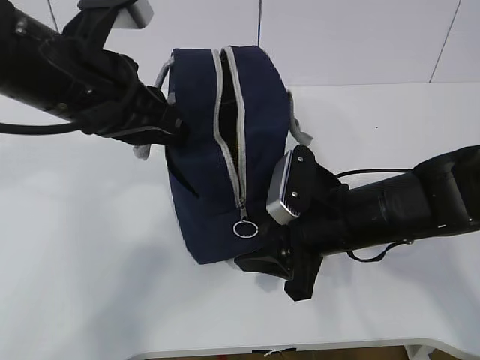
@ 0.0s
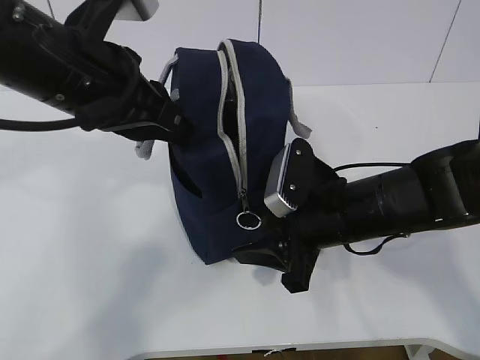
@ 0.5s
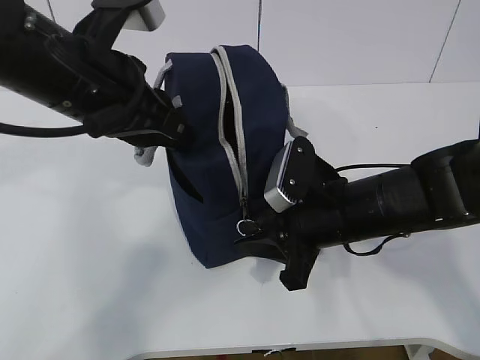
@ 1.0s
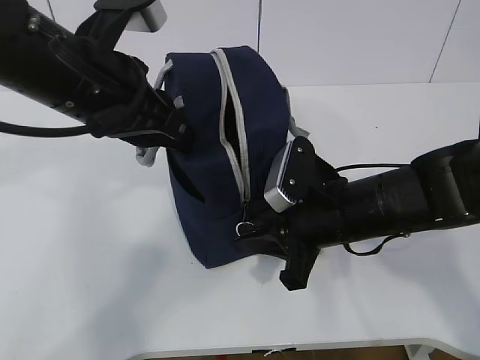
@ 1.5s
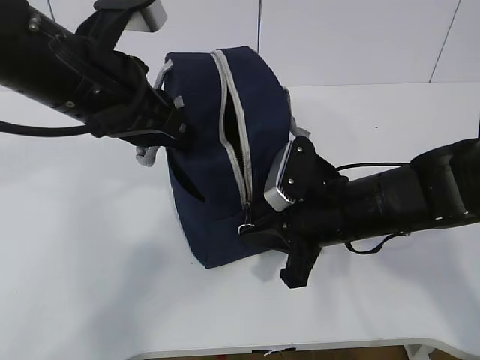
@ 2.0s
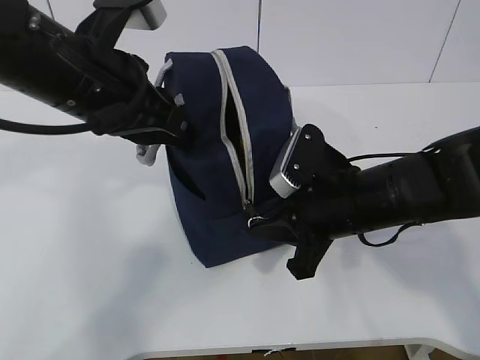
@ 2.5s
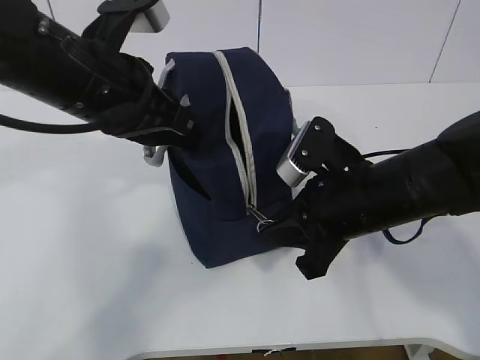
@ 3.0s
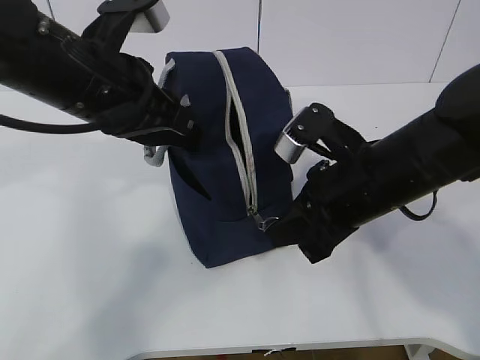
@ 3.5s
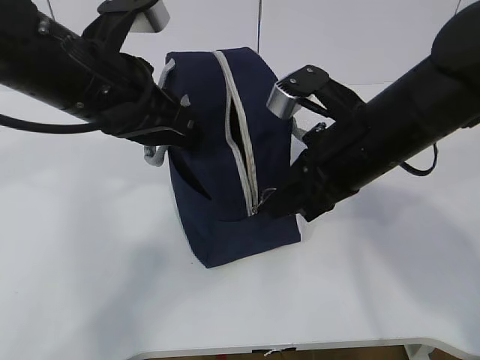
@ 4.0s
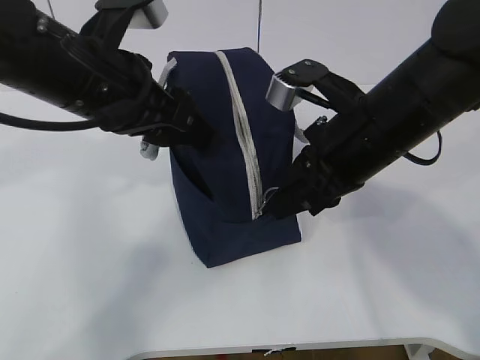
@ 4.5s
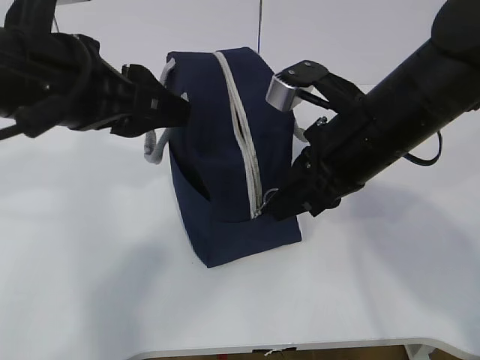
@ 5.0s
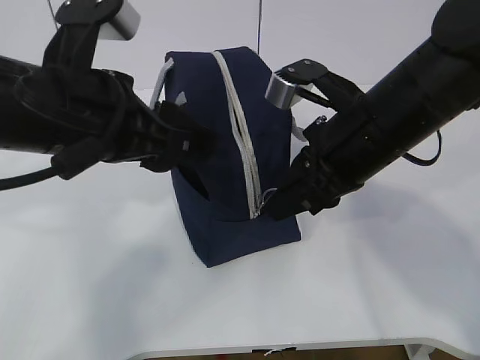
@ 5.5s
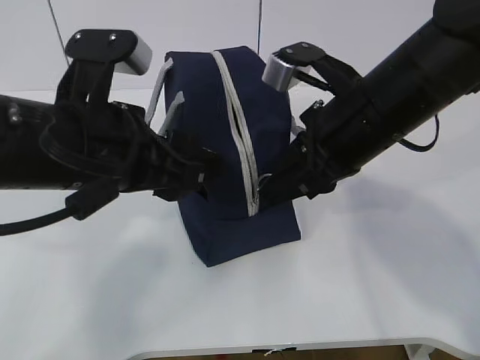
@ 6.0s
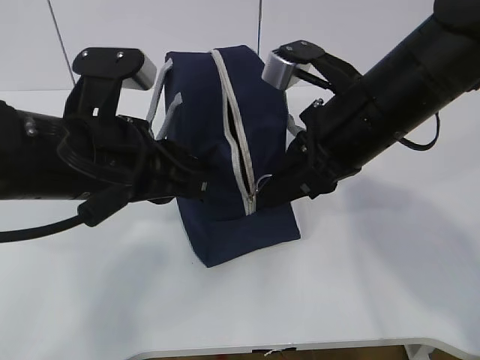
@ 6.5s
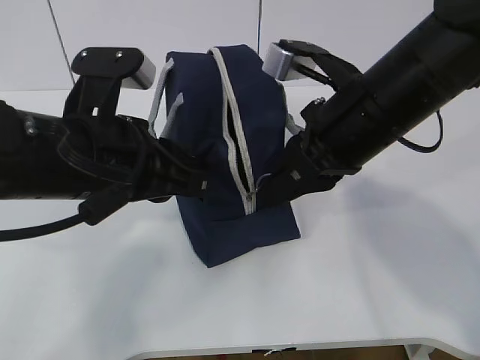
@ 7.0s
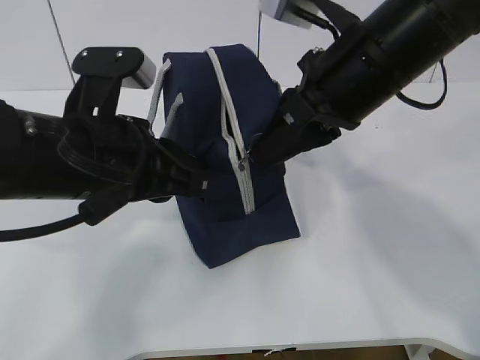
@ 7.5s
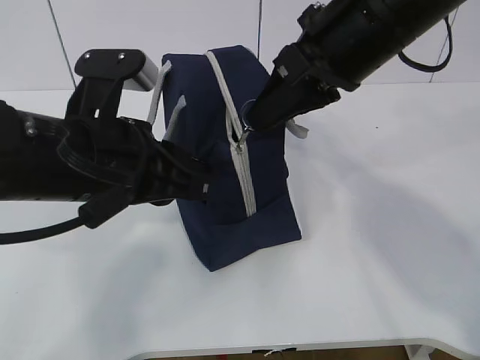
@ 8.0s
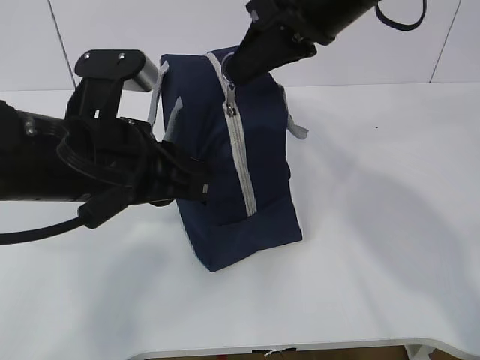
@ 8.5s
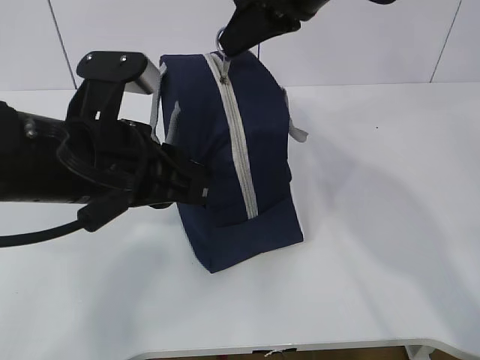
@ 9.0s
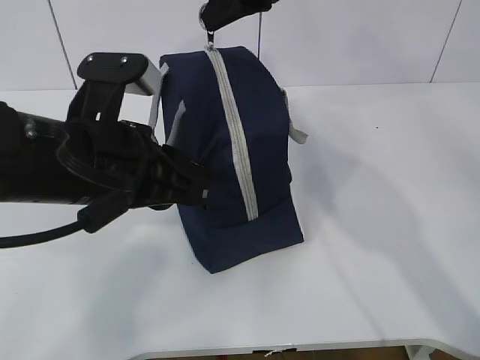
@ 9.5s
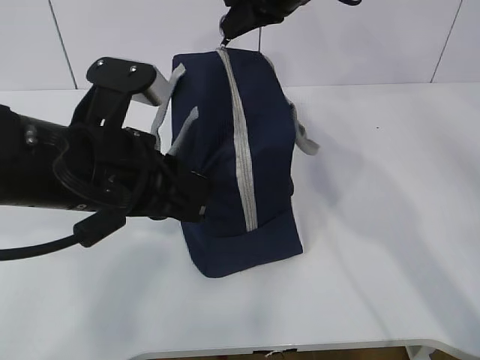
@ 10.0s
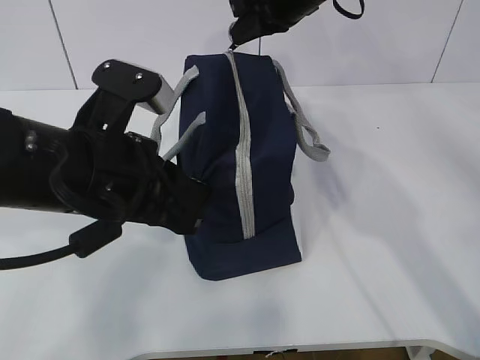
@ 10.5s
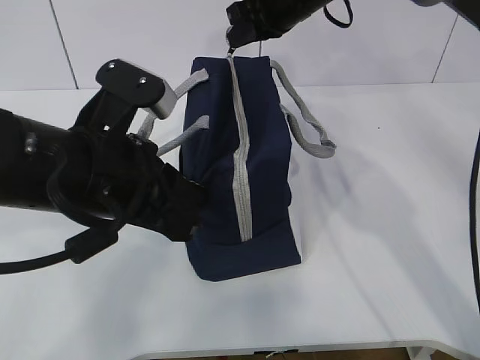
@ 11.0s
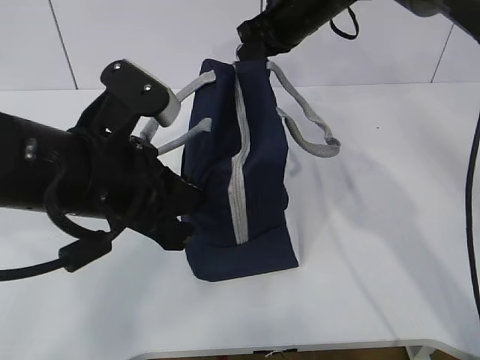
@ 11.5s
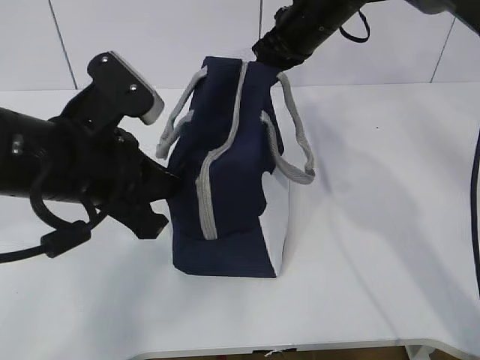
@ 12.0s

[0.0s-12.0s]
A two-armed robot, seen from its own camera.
Step, 0.0s to 2.5s: Grab the lunch bag with your left hand.
Step, 3.0s to 7.5s: Pull the zipper with your right hand.
0.0s to 2.0s: The right gripper closes up.
2.0s to 4.0s: The right gripper shifts about 10 cm upward.
4.0s to 6.0s: The left gripper moves backward, about 5 cm, and opens.
6.0s to 8.0s: The right gripper shifts roughly 5 cm upward, while the left gripper closes.
8.0s to 10.0s: The right gripper shifts about 15 cm forward.
10.0s to 12.0s: The right gripper heads downward, covering roughly 5 cm.

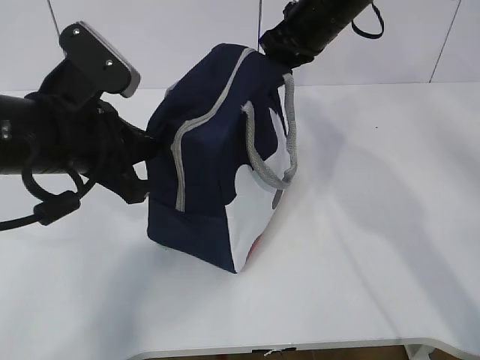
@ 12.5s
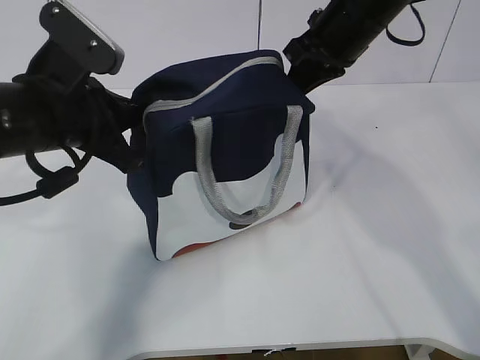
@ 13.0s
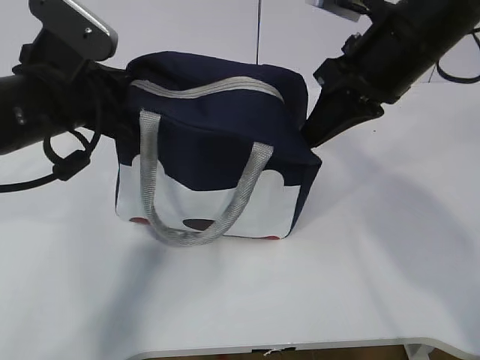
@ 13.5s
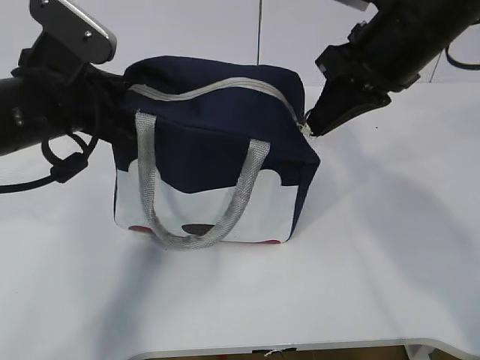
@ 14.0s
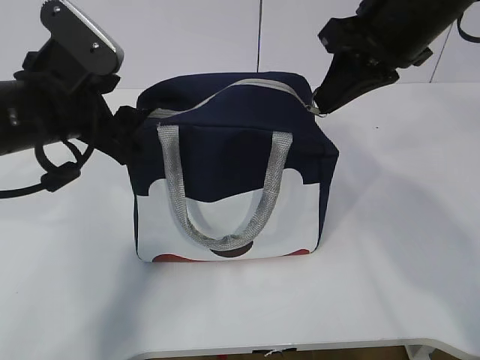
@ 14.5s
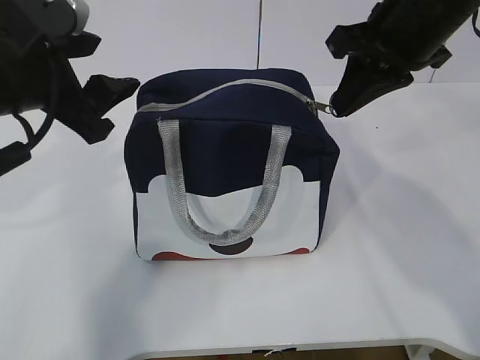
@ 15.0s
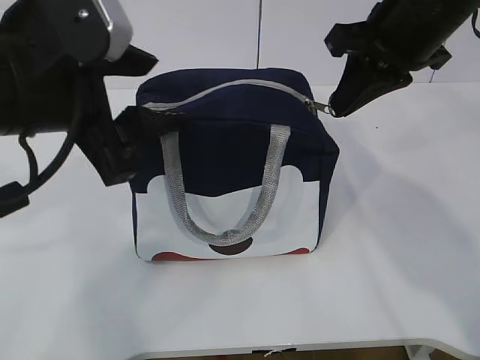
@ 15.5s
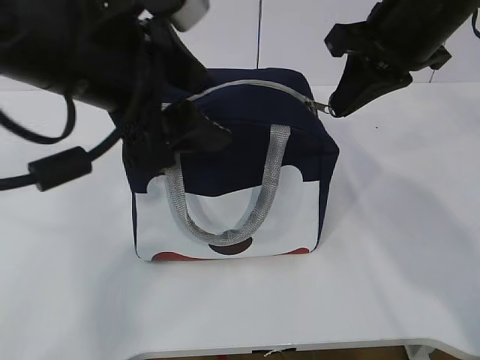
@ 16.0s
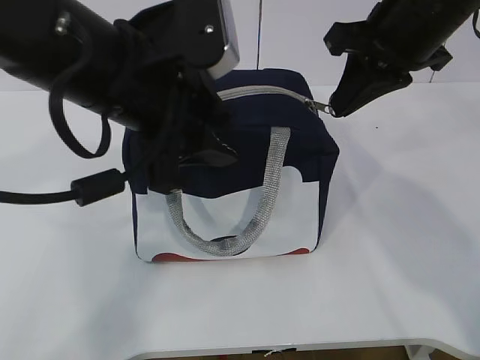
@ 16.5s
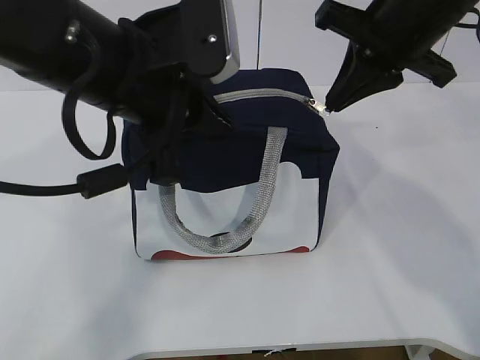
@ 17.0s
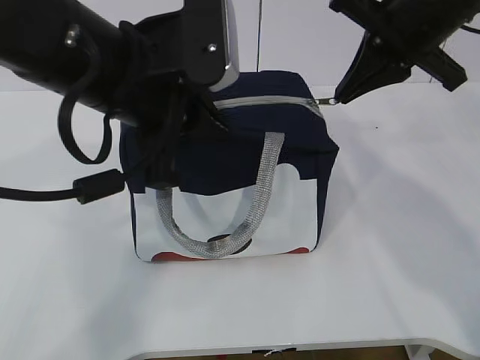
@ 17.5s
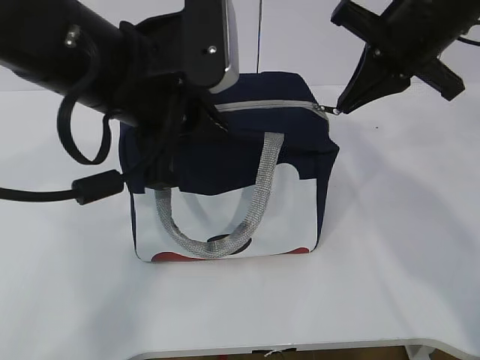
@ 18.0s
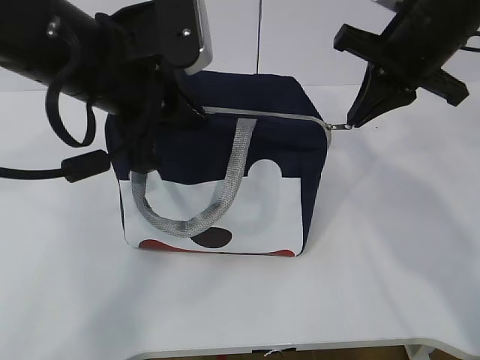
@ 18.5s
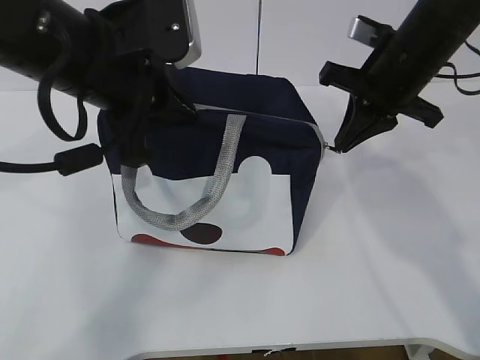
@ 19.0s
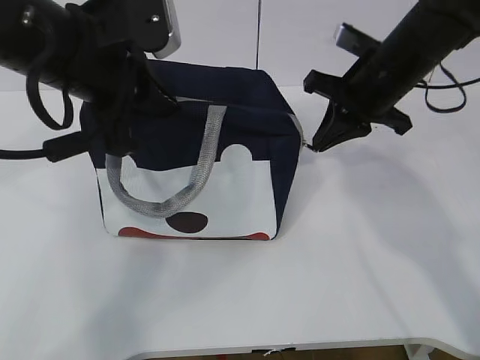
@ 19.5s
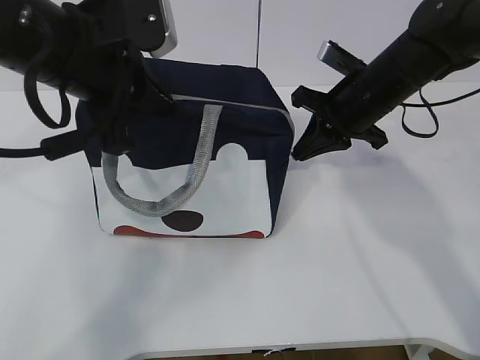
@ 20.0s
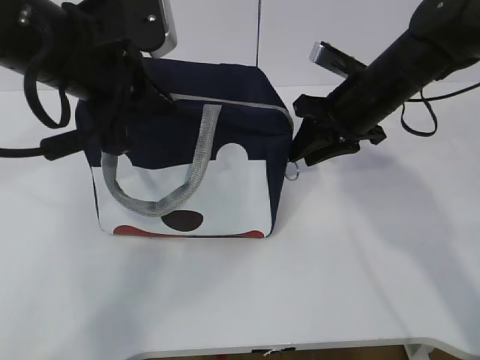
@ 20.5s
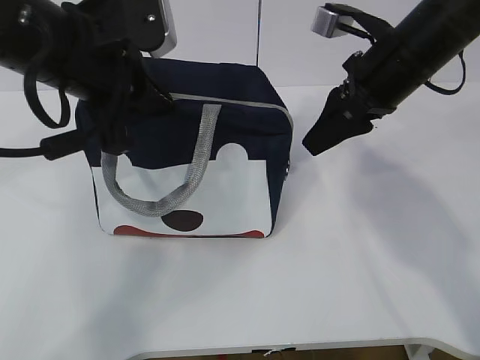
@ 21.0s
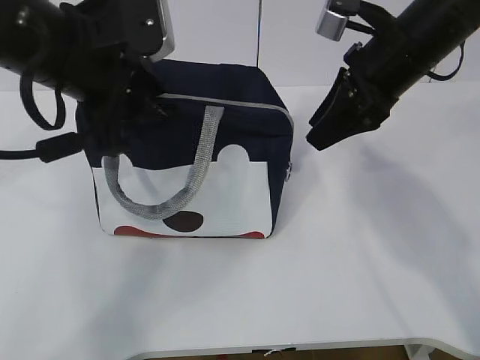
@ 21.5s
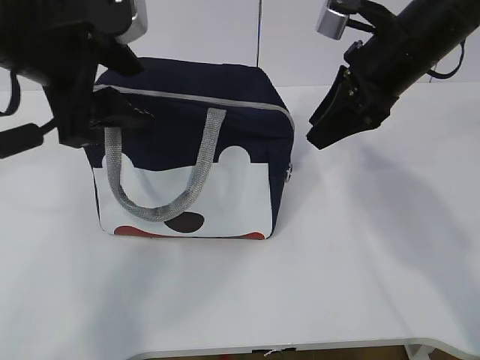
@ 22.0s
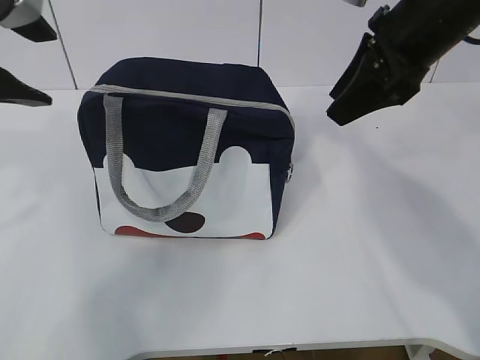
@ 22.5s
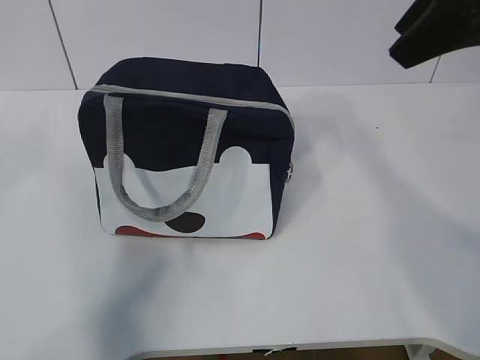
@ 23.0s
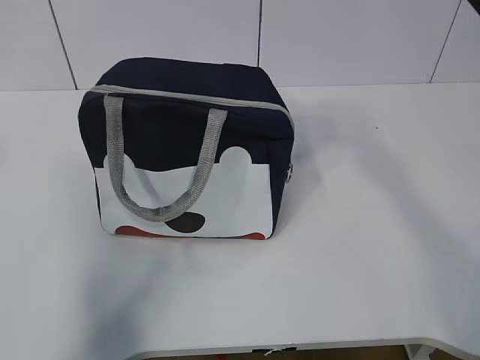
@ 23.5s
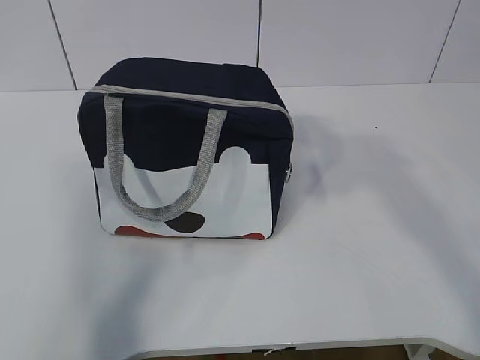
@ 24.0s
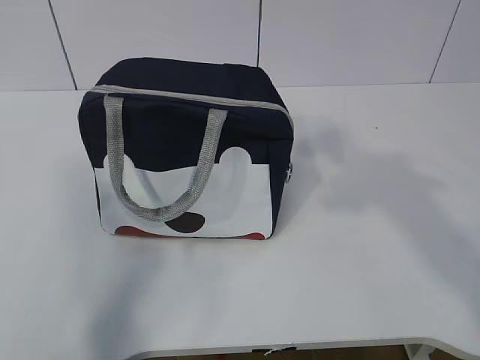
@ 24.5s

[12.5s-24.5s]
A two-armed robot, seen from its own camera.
12.5s to 14.5s: The left gripper opens; the right gripper travels backward by approximately 15 cm.
14.5s to 16.5s: The left gripper is displaced to the right and upward by about 10 cm.
16.5s to 18.5s: The left gripper closes.
18.5s to 20.5s: The right gripper shifts approximately 10 cm downward, and opens its fingers.
20.5s to 22.5s: The left gripper moves upward, backward and to the left, approximately 10 cm, and opens its fingers. The right gripper shifts about 15 cm upward and backward.
22.5s to 24.5s: The left gripper travels backward and to the left by some 25 cm. The right gripper heads backward and upward, covering approximately 25 cm.

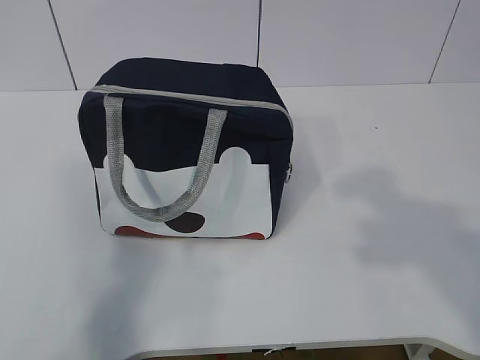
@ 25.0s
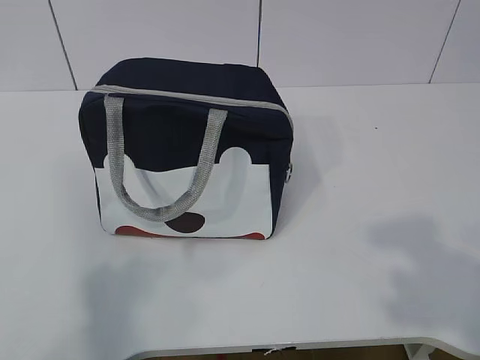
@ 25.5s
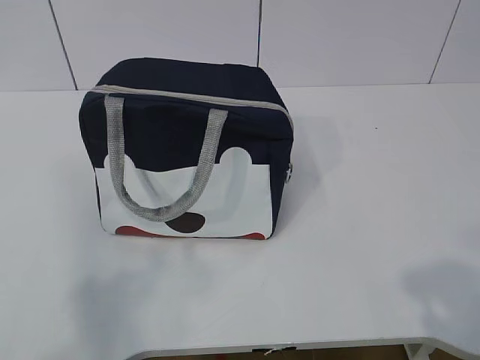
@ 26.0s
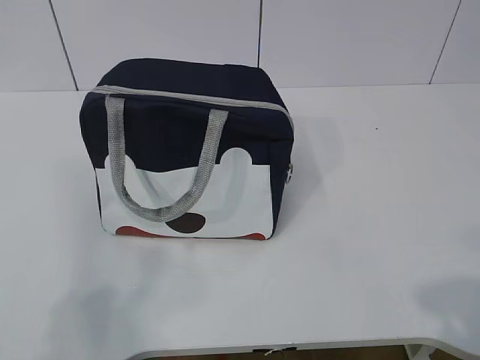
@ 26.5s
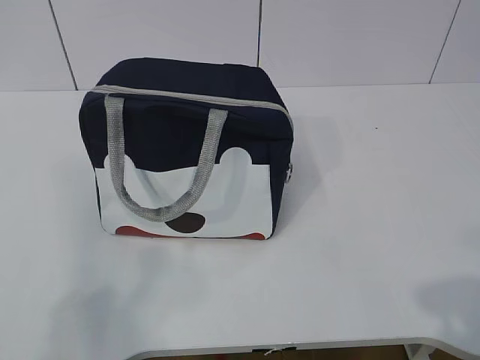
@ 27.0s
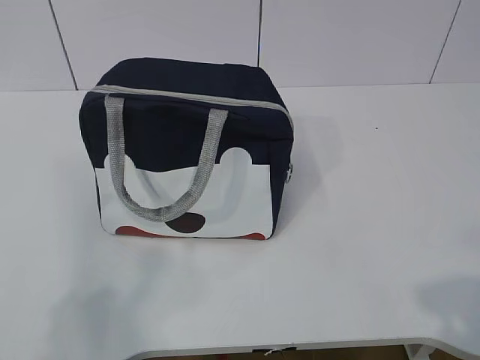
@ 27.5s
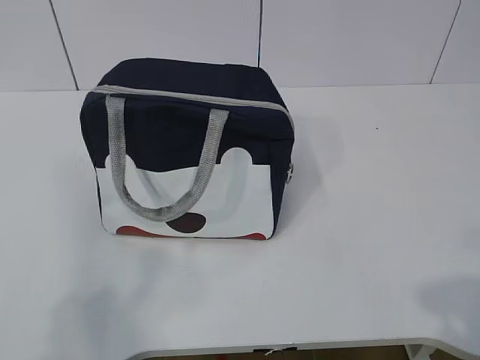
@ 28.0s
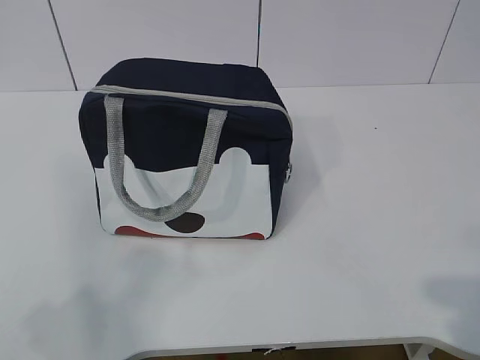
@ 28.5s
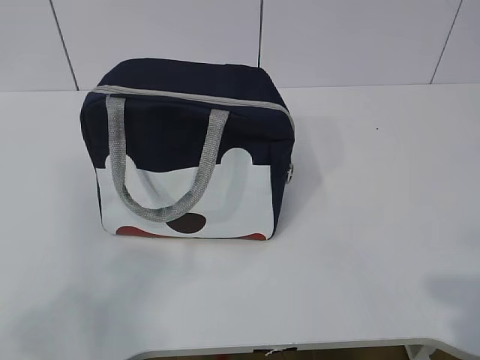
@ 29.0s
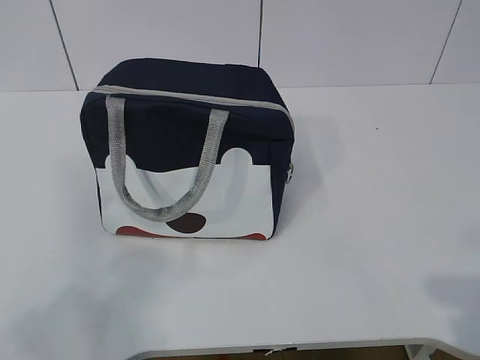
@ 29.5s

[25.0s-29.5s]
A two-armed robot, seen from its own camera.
25.0s to 27.0s: The left gripper moves downward, about 5 cm.
